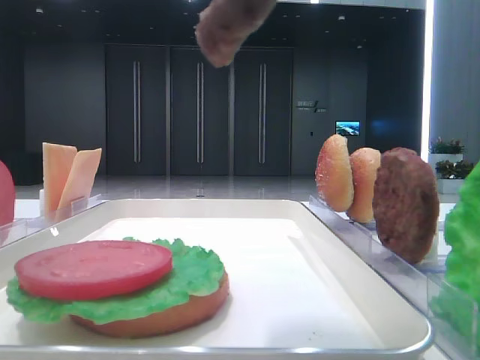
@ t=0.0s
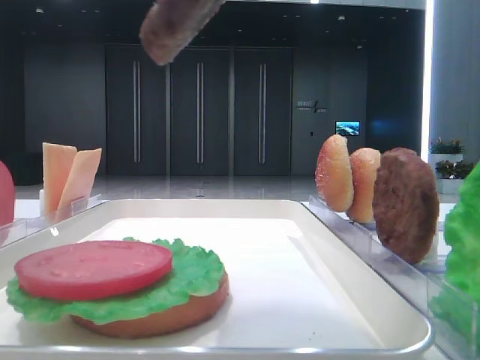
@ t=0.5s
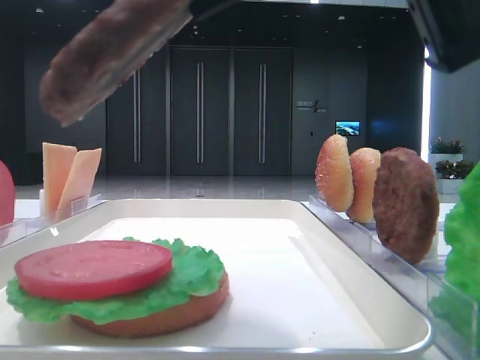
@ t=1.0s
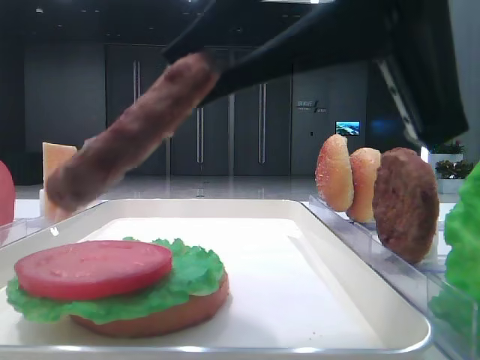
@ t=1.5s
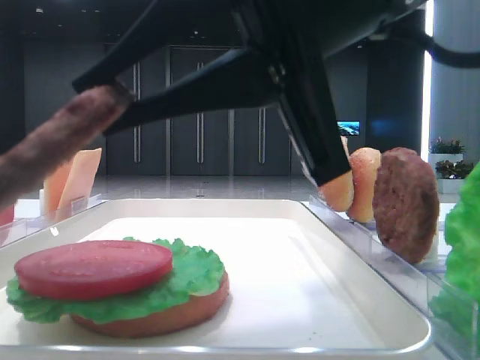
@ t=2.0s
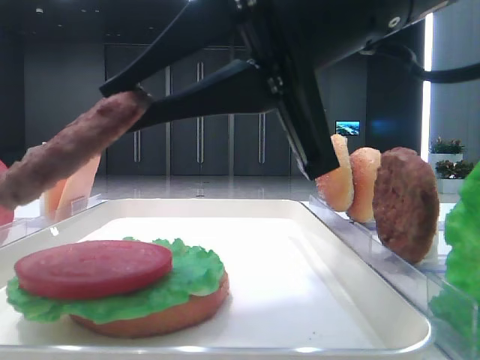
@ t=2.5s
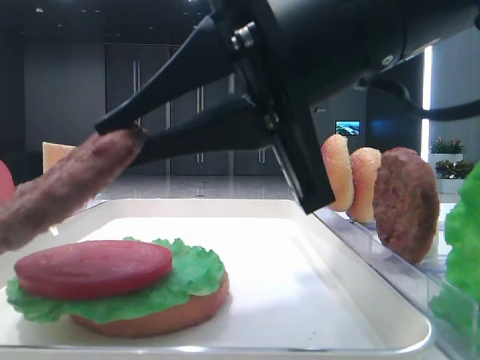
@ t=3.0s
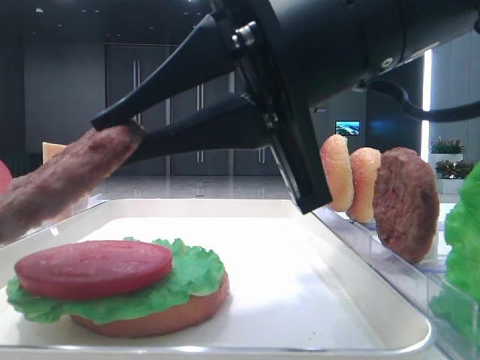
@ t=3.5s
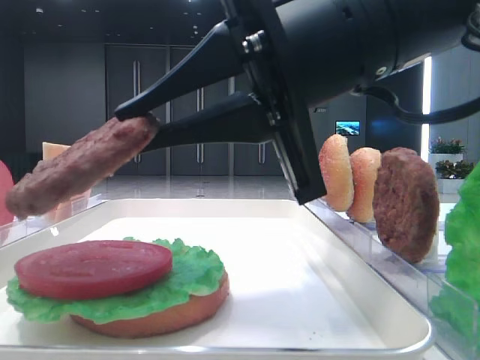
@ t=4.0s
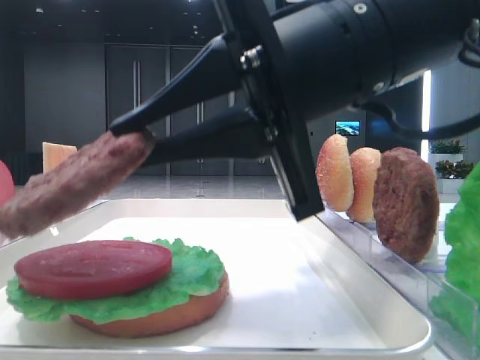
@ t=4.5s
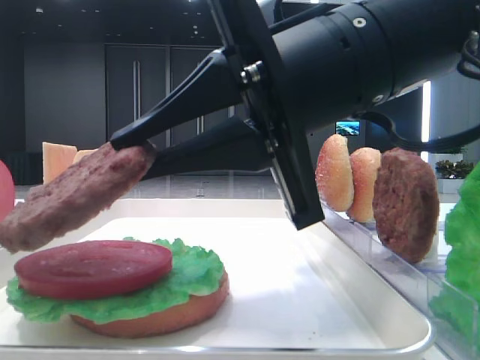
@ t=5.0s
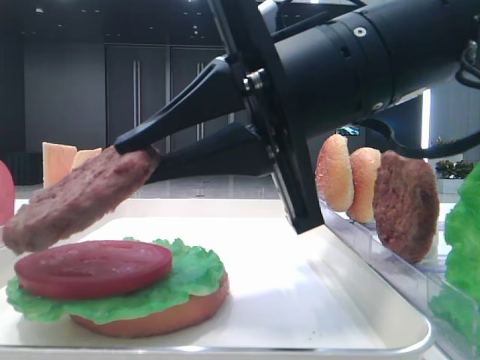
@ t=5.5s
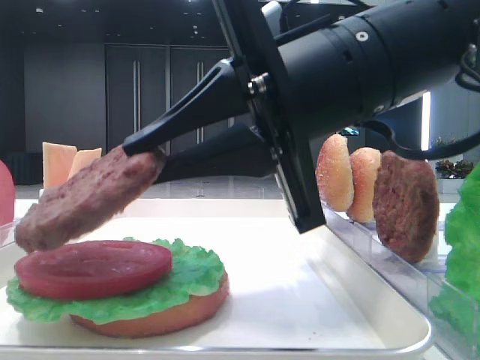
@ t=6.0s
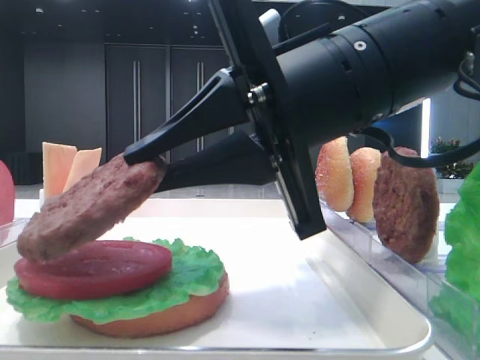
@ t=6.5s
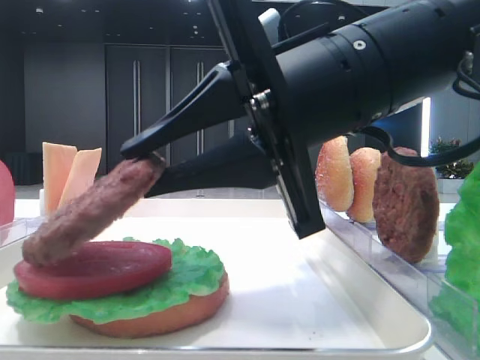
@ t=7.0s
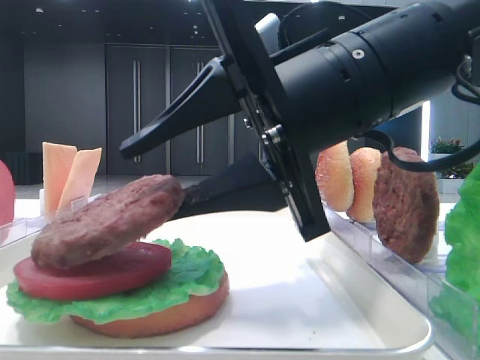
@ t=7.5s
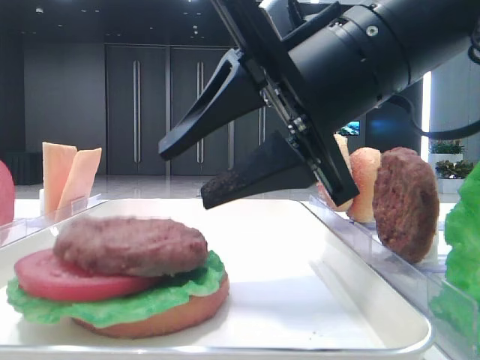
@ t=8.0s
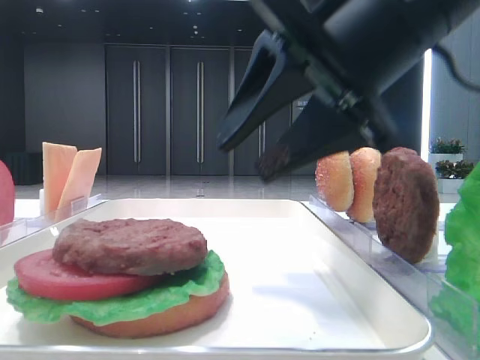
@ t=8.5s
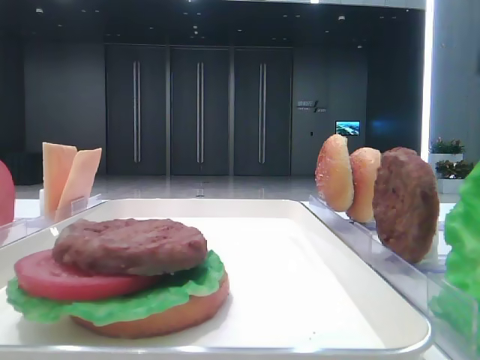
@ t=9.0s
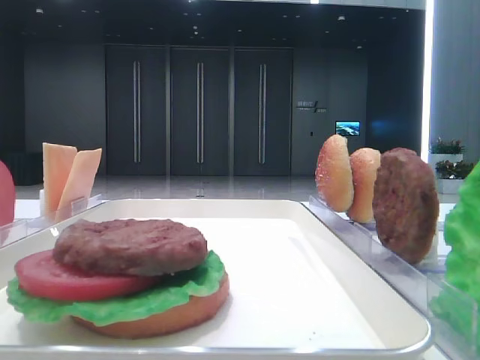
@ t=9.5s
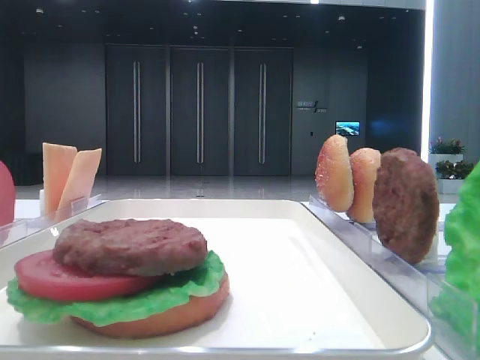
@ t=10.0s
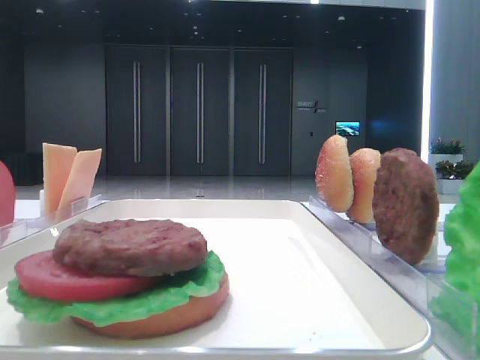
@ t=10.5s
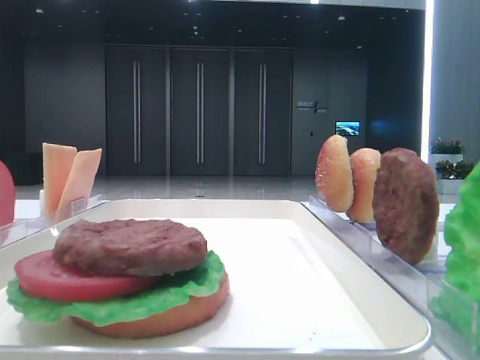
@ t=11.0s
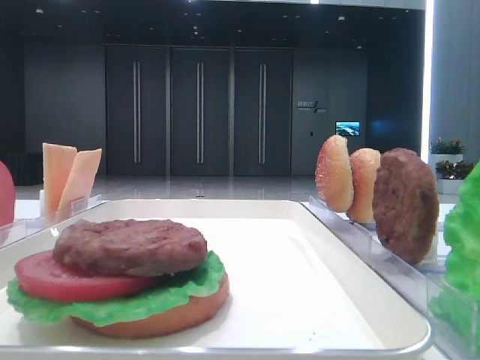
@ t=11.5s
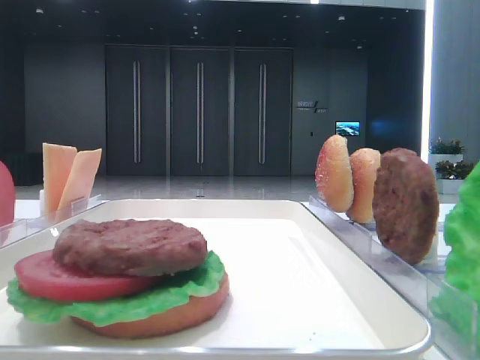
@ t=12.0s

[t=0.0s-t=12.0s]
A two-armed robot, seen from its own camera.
Step, t=0.0s to t=7.5s: Place the patty on the tomato slice with the right hand.
t=0.0s to t=2.0s: The right gripper is displaced downward, forward and to the left by about 15 cm.
t=6.0s to t=8.0s: The right gripper opens its fingers.
t=8.0s to t=10.0s: The right gripper shifts about 35 cm to the right, backward and upward.

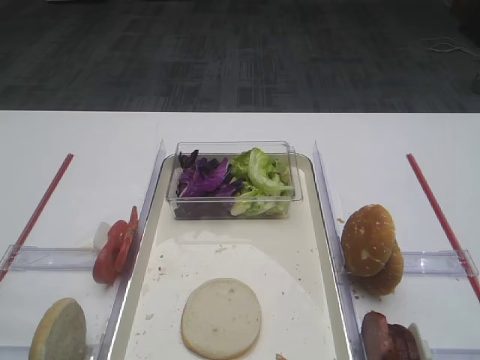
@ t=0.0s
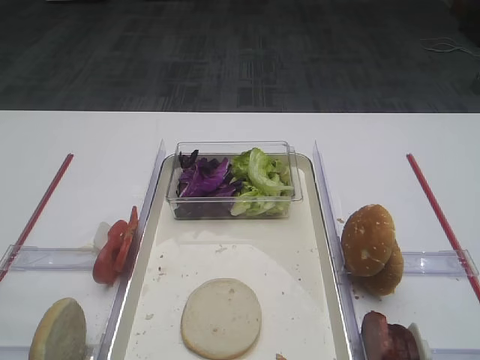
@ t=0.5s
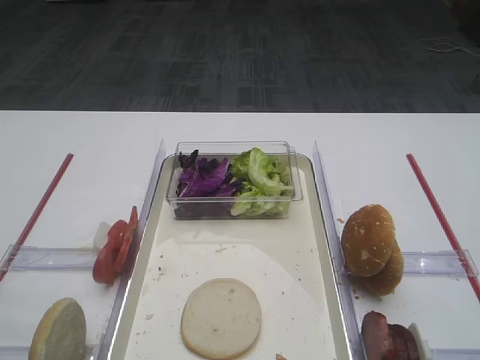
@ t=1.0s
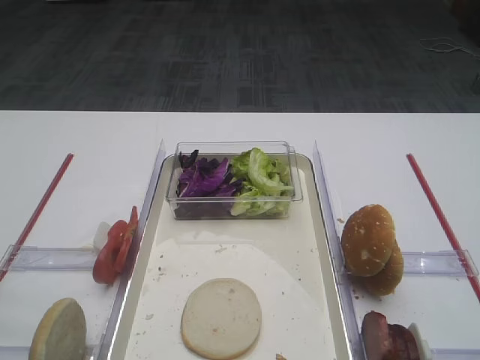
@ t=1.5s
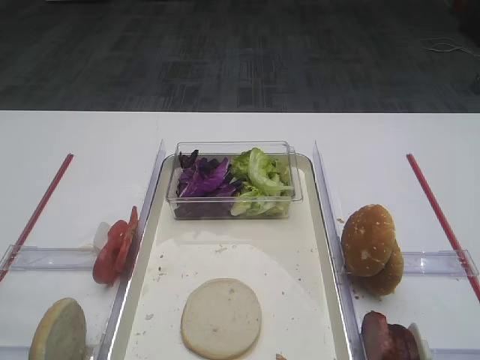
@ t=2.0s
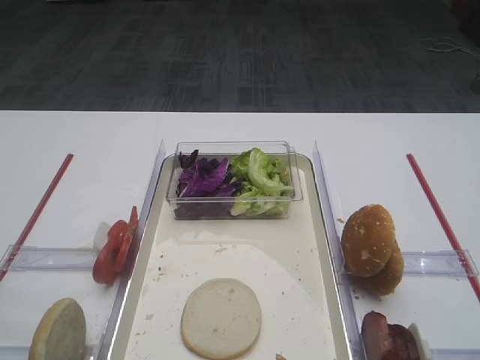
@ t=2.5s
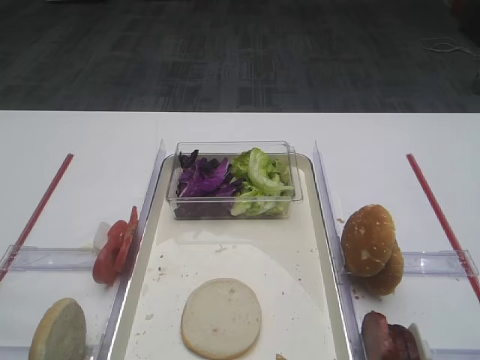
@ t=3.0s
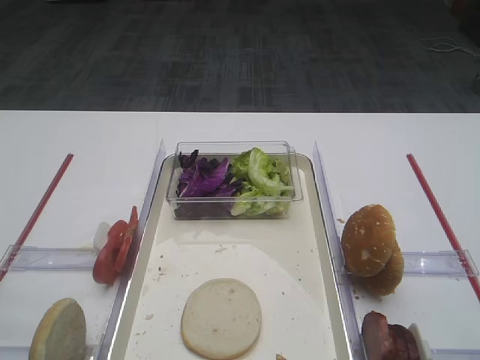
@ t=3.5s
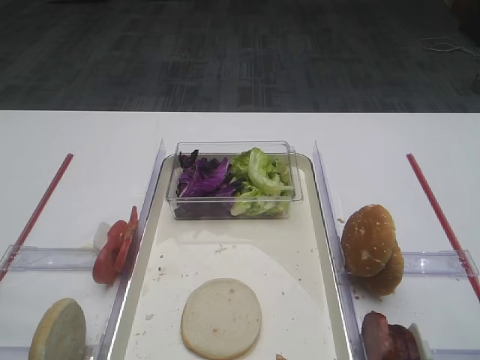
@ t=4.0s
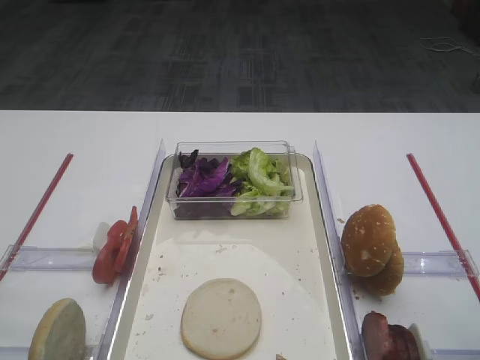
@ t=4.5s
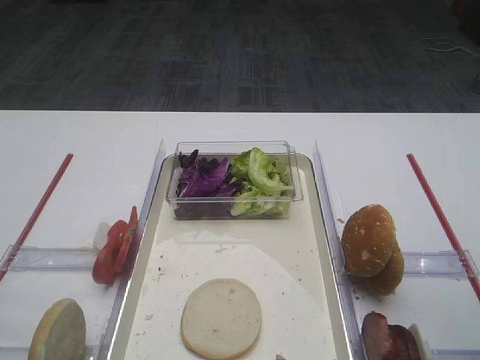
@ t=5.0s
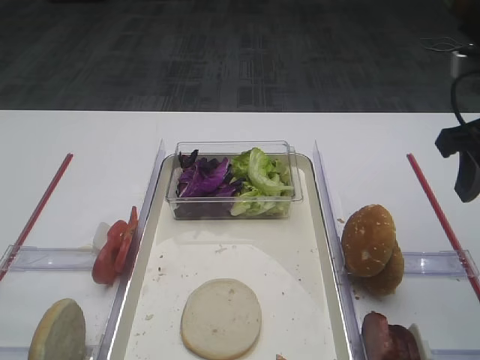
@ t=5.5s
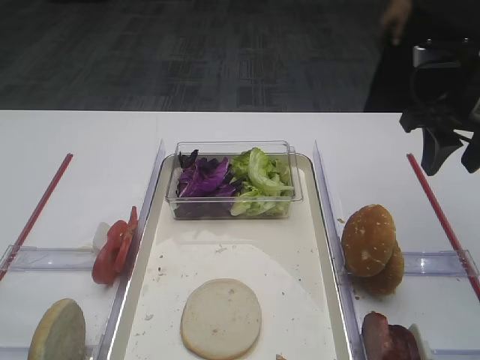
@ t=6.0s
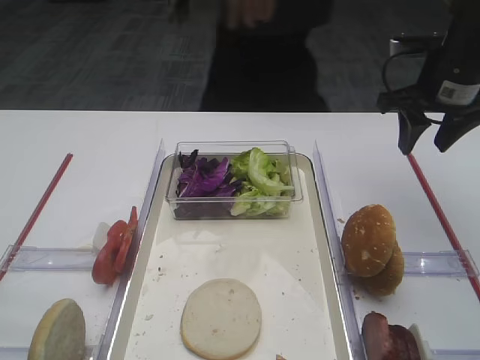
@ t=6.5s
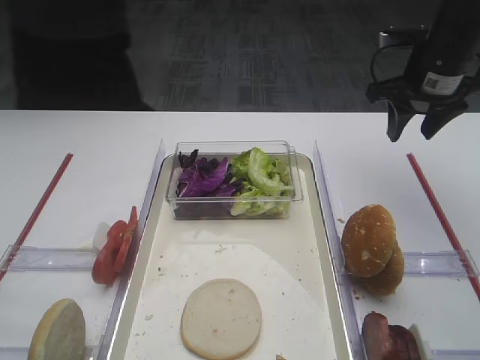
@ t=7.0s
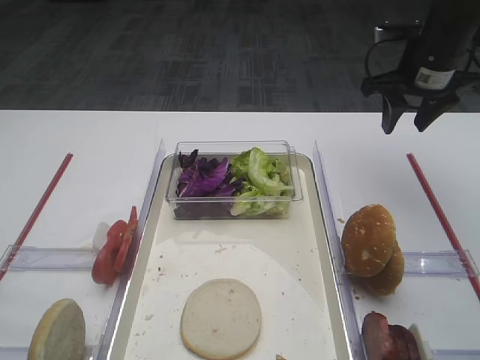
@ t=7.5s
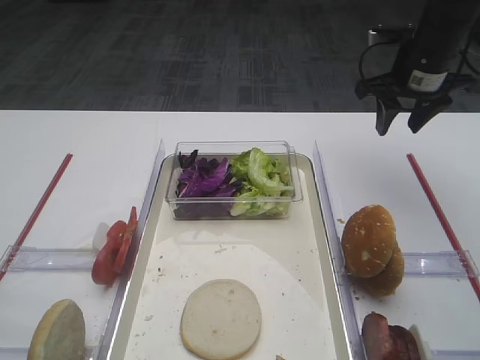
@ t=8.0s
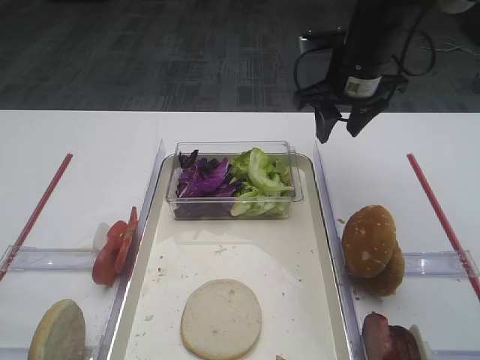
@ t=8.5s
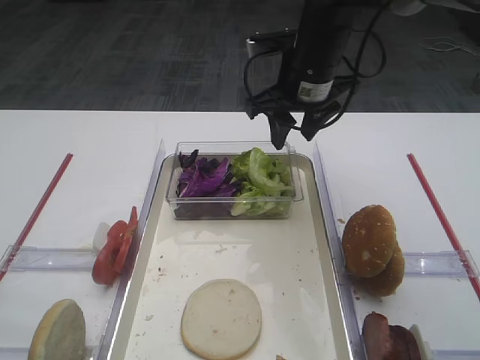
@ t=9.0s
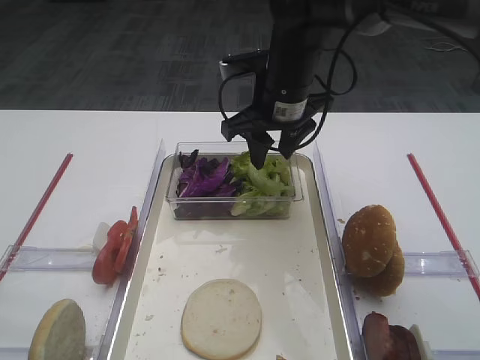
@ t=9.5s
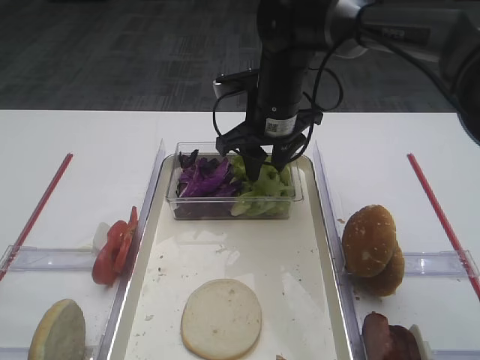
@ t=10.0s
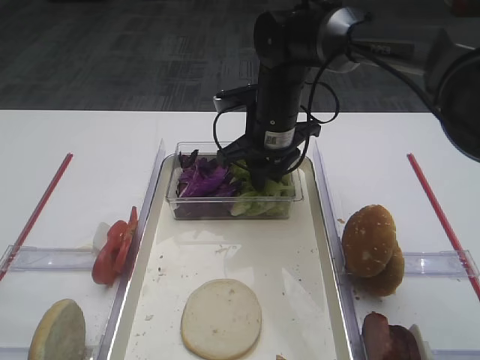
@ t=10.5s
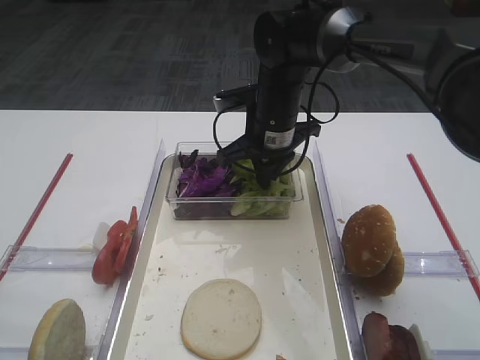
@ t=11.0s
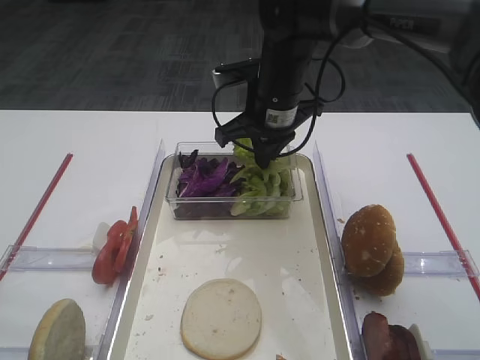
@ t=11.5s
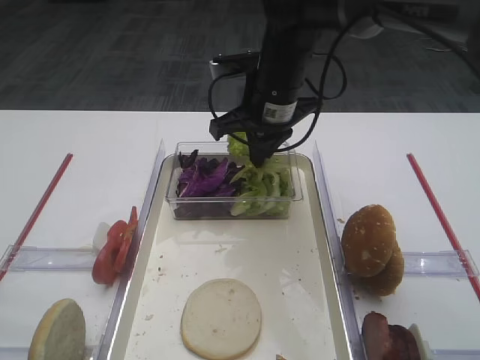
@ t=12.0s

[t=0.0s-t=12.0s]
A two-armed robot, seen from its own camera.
Step, t=0.0s to t=12.0s: Pick up the lettuce leaf with the right gripper.
t=4.0s to t=6.0s: The right gripper heads forward, covering approximately 25 cm.
t=6.0s to t=8.0s: The right gripper moves forward, approximately 10 cm.
t=8.0s to t=10.0s: The right gripper travels to the left by some 20 cm.
t=10.0s to t=12.0s: The right gripper closes its fingers.

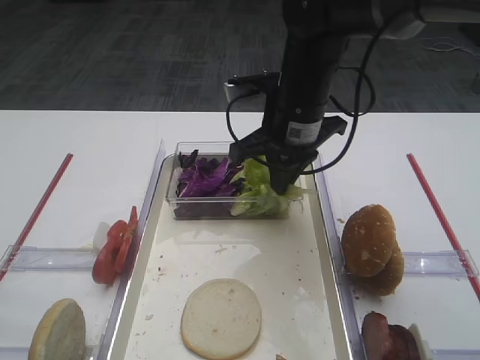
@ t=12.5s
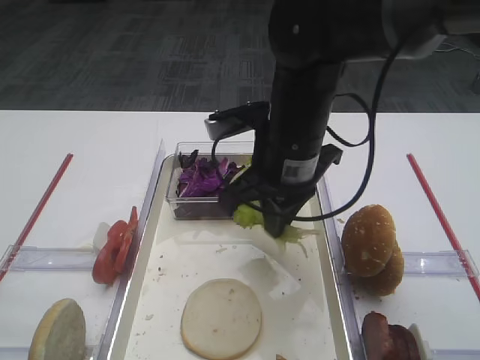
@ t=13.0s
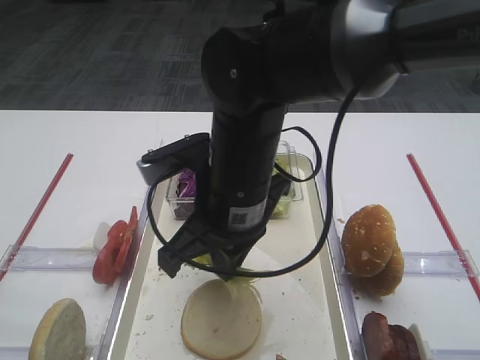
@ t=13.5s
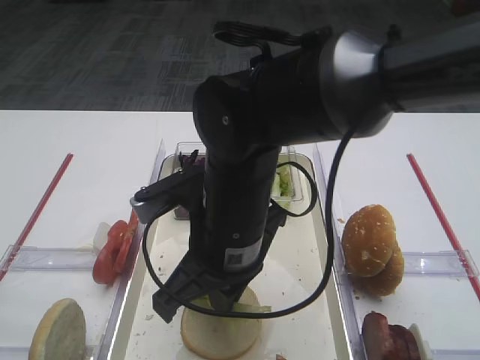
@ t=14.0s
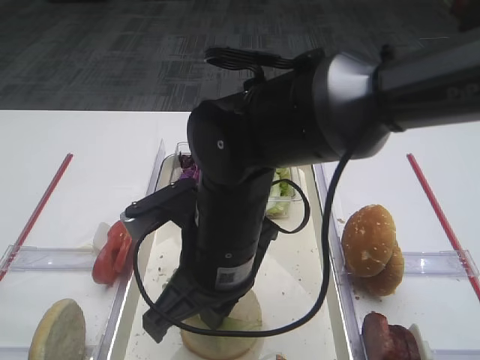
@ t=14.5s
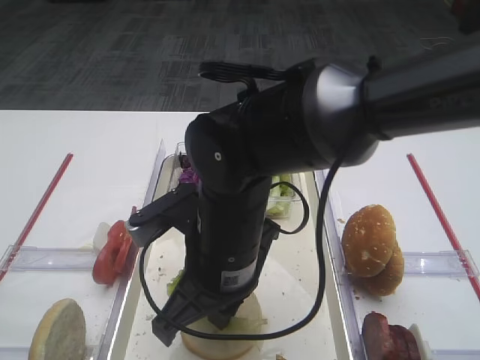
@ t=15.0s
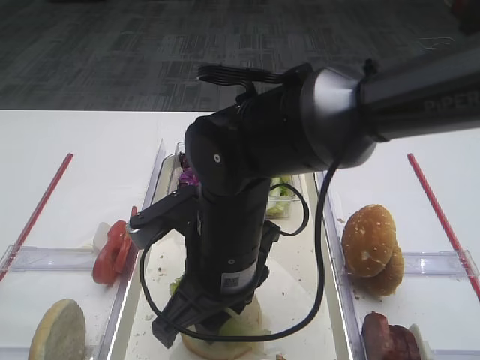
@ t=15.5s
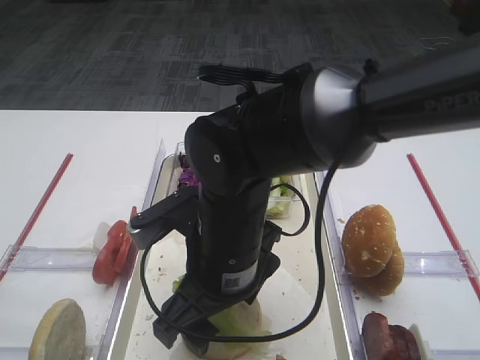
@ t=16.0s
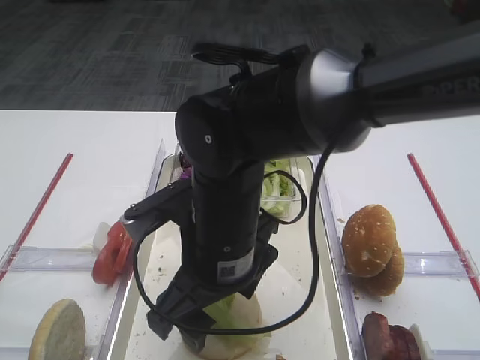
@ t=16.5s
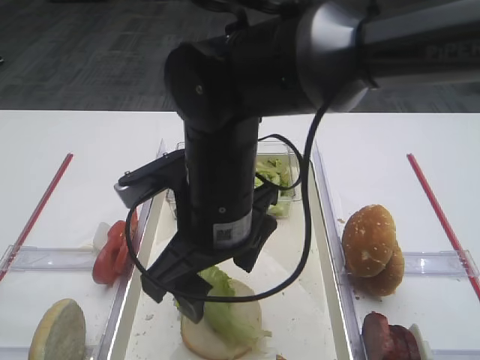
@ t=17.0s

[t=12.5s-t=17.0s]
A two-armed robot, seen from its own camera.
t=12.5s to t=14.5s: The right gripper moves backward and to the left, some 15 cm.
t=14.5s to t=17.0s: The right gripper opens.
